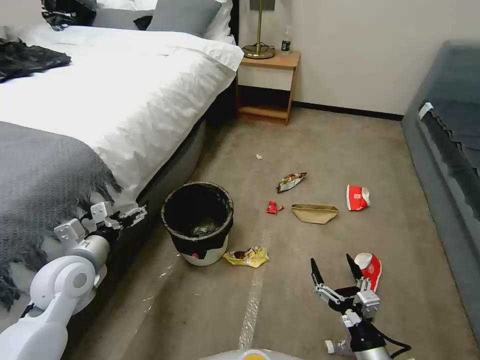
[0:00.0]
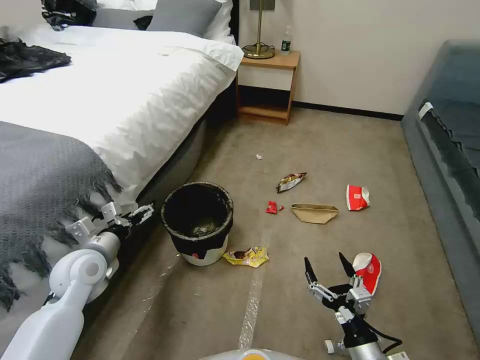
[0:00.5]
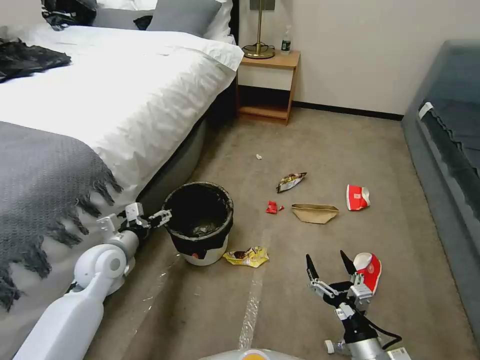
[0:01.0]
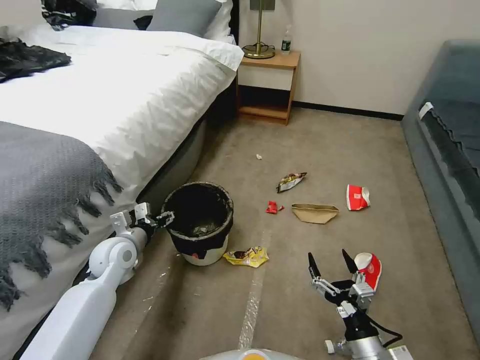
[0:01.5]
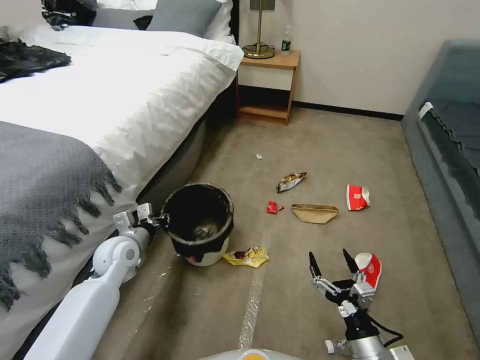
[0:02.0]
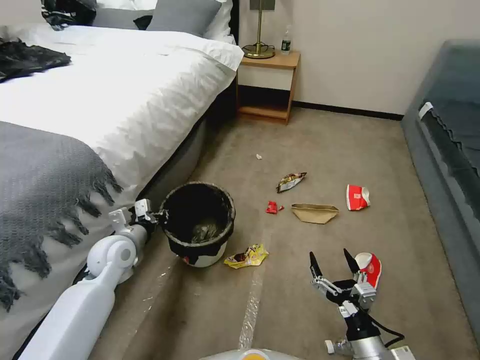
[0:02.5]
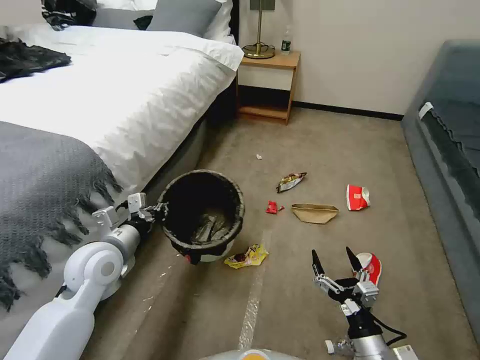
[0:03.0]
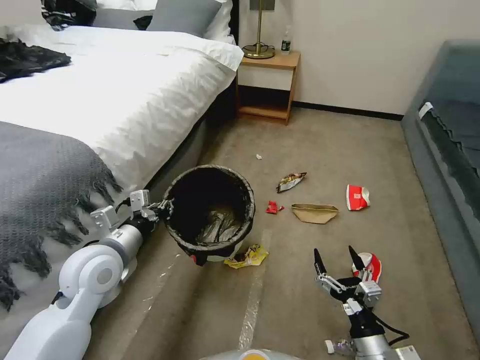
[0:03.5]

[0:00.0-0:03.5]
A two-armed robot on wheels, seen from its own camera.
Task of the whole recording: Pick up the trash can from the floor.
0:00.0 to 0:02.0: The left gripper travels forward and downward by about 10 cm, and closes.
0:02.0 to 0:03.5: The left gripper shifts approximately 15 cm upward and backward.
